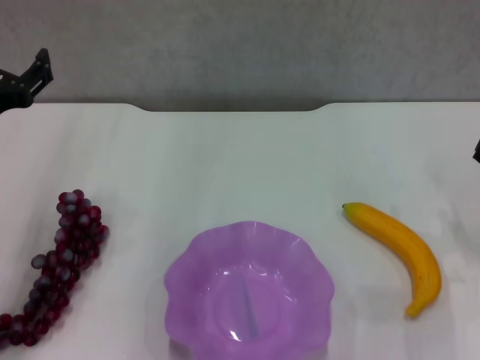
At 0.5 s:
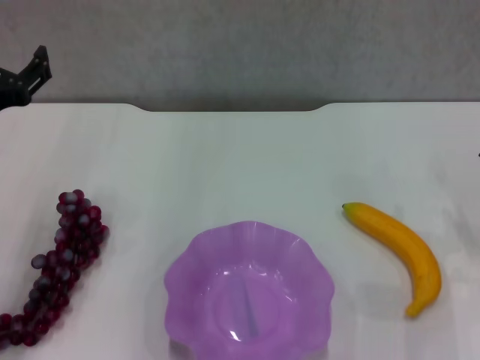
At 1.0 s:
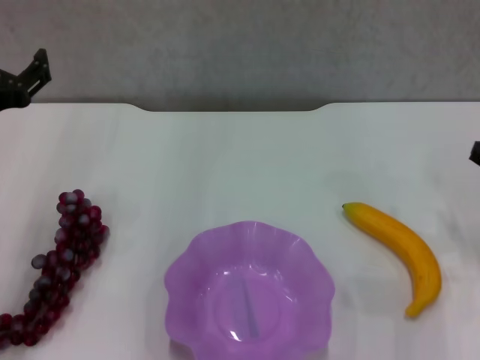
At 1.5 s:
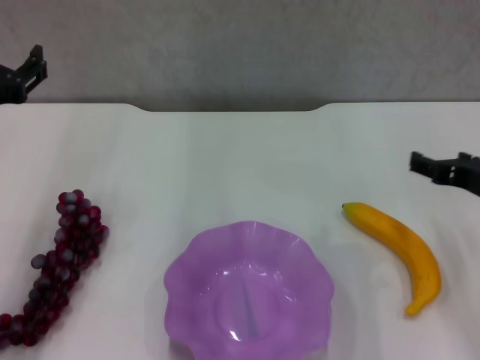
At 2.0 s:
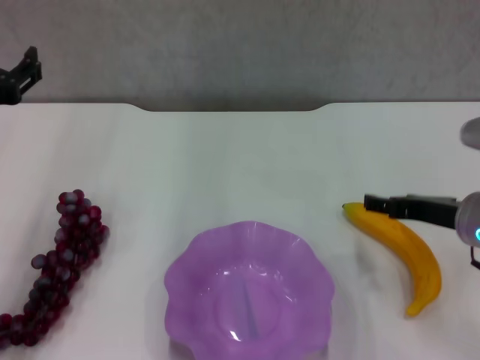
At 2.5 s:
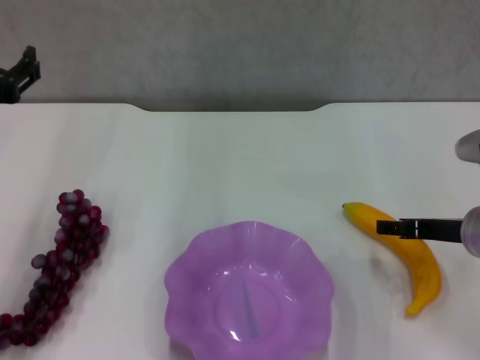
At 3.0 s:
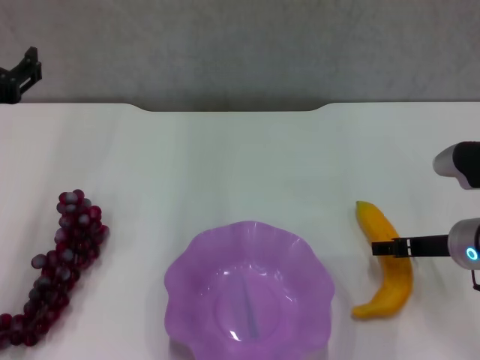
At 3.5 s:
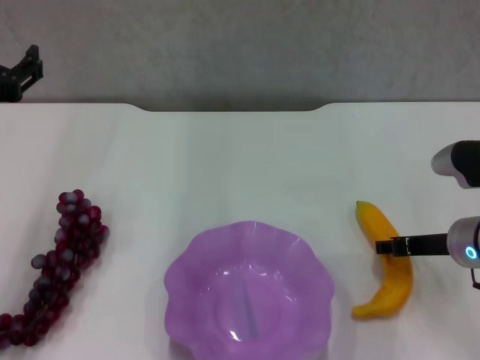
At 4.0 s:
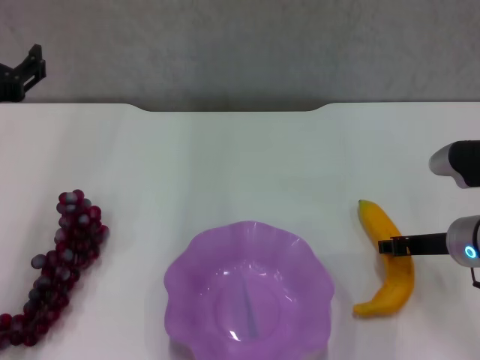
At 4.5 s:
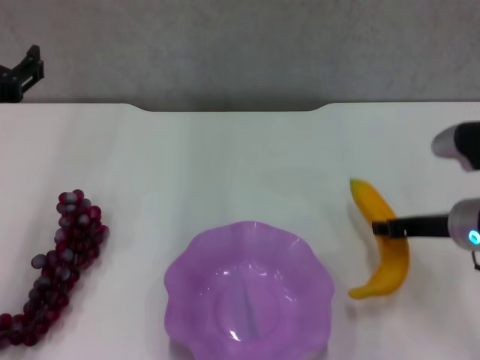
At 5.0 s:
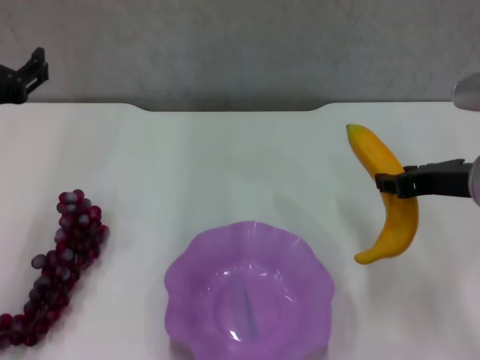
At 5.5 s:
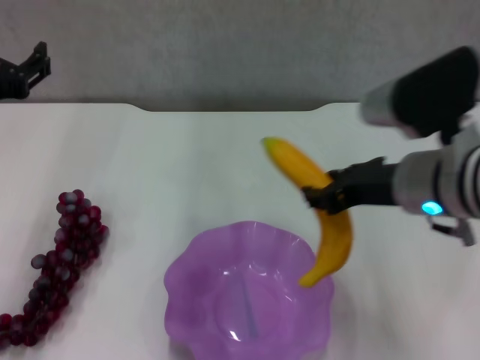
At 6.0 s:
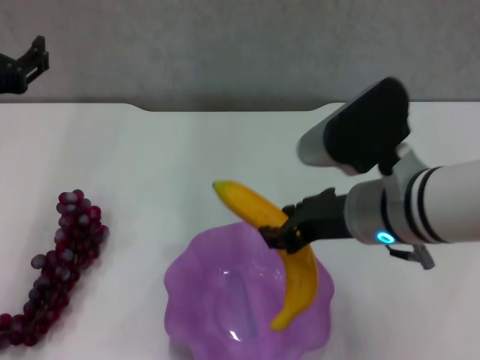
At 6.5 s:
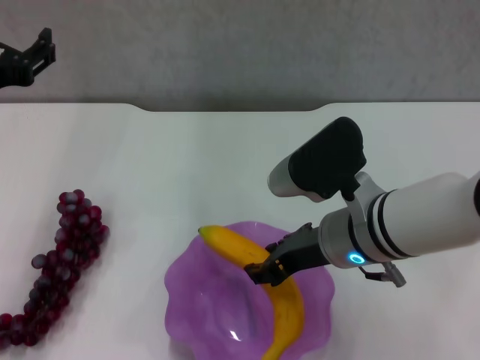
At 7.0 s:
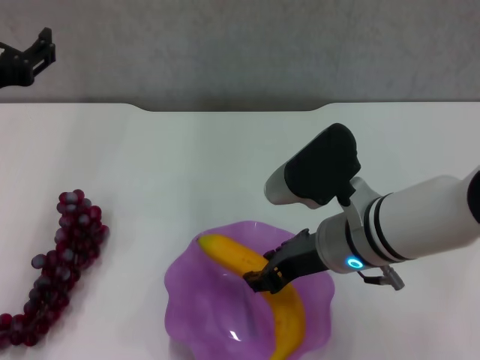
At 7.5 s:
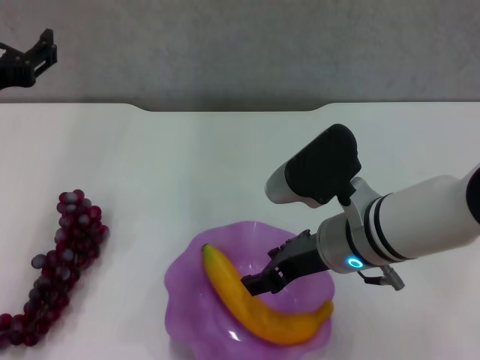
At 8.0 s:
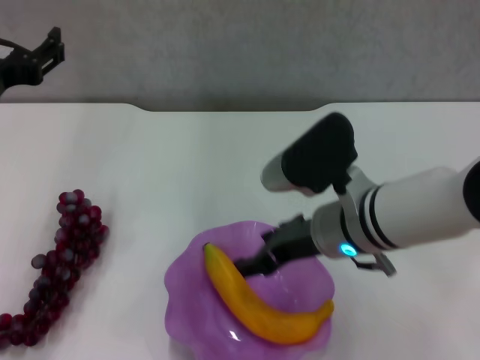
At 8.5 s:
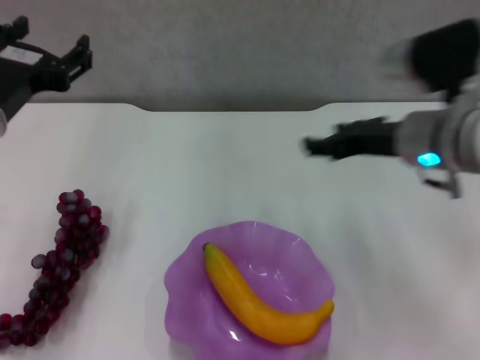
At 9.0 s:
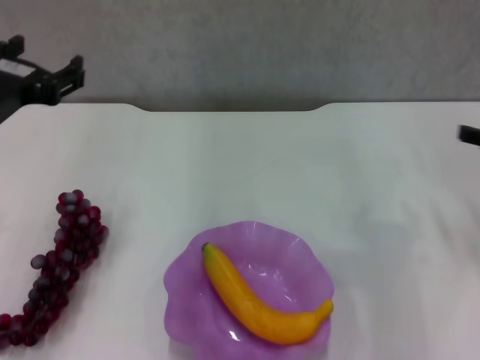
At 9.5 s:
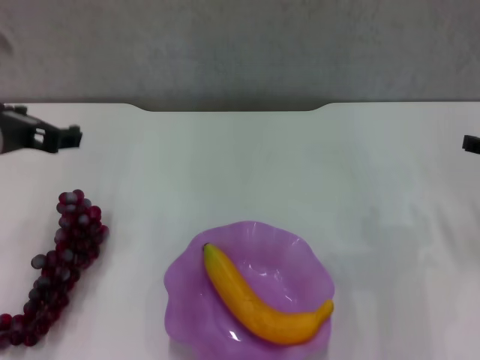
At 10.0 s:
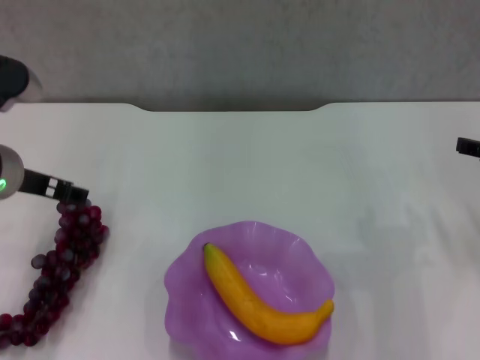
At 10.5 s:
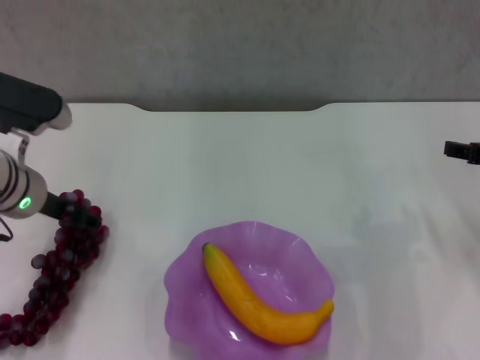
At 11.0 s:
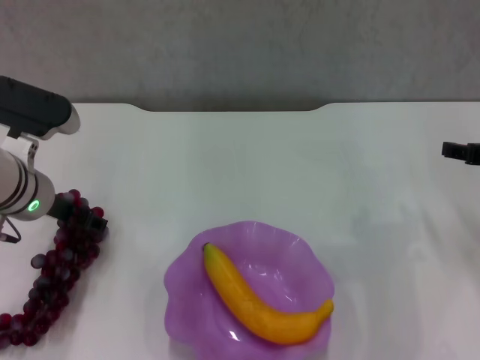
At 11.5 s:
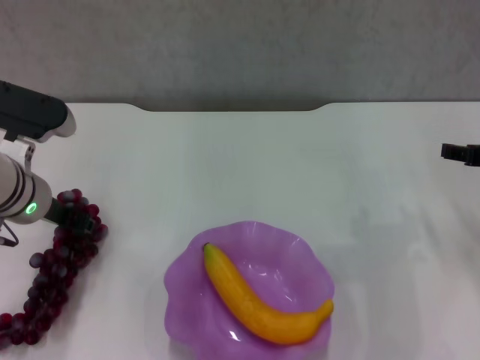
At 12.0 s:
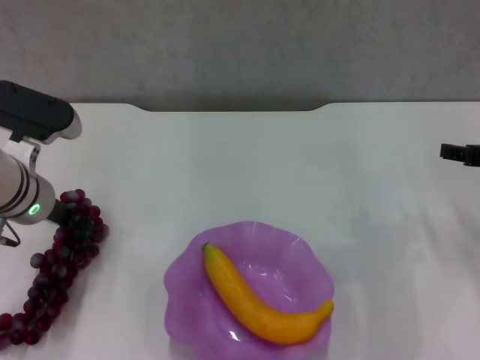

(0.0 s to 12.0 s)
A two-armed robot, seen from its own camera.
Step, 0.0 s - 3.5 s: Grasp the banana with right gripper.
Step, 4.0 s - 7.0 s: Place the banana in the purple plate with right gripper.
0.0 s - 2.0 s: The right gripper shifts about 10 cm to the left.
2.0 s - 4.0 s: The right gripper closes its fingers.
4.0 s - 6.0 s: The right gripper travels to the left and upward by approximately 15 cm.
6.0 s - 8.0 s: The right gripper opens its fingers.
8.0 s - 10.0 s: The left gripper changes place by approximately 5 cm; the right gripper travels to the right by roughly 25 cm.
10.0 s - 12.0 s: The left gripper moves roughly 5 cm, and closes up.

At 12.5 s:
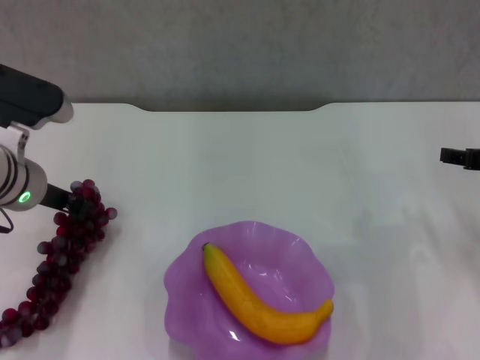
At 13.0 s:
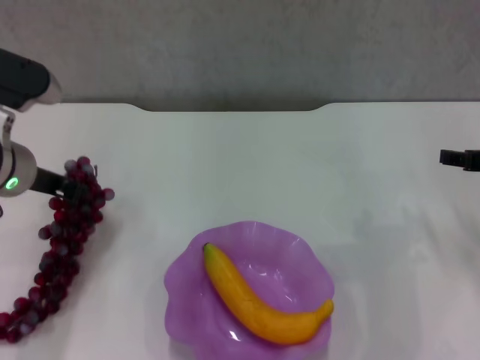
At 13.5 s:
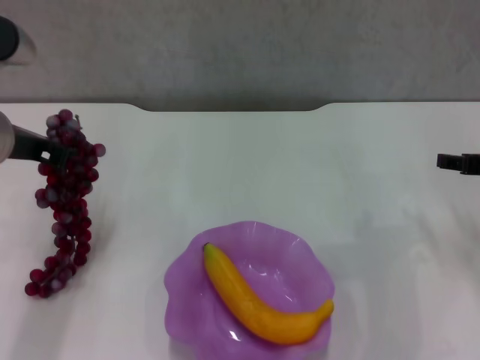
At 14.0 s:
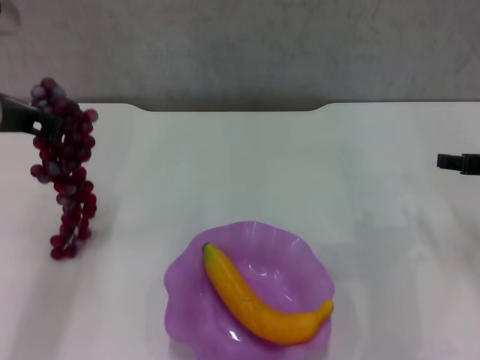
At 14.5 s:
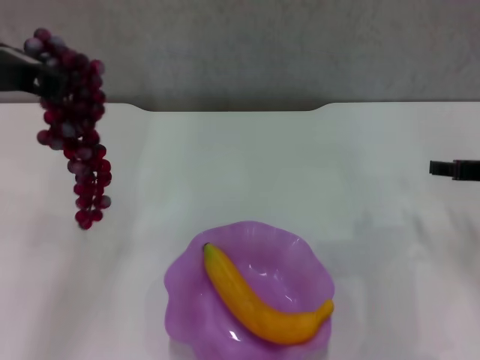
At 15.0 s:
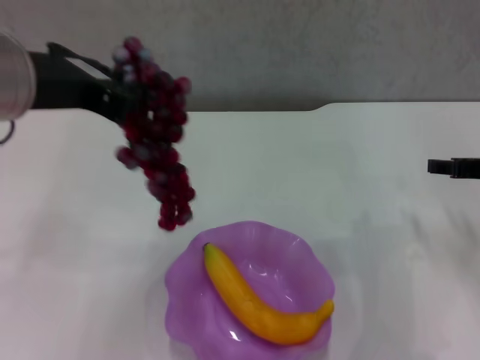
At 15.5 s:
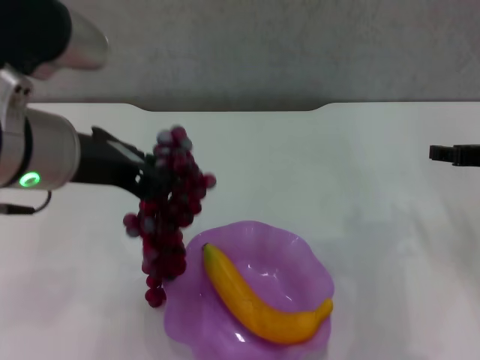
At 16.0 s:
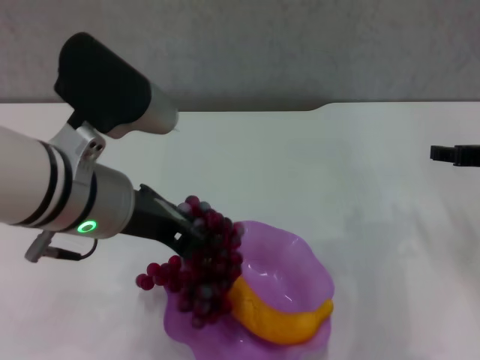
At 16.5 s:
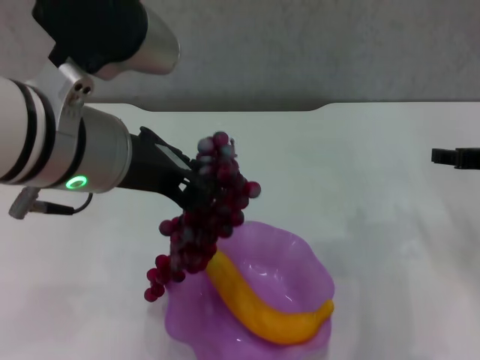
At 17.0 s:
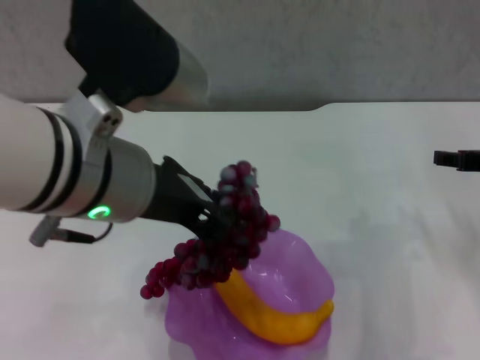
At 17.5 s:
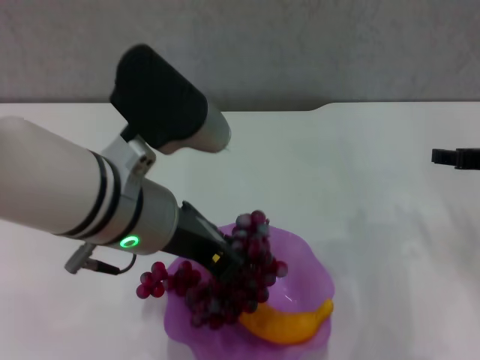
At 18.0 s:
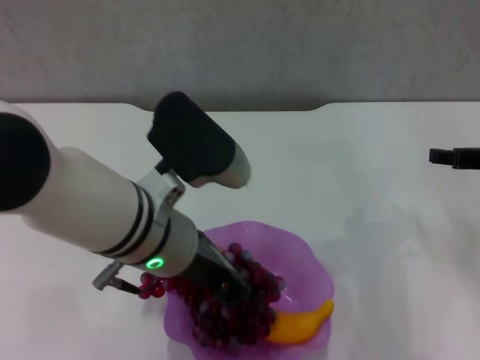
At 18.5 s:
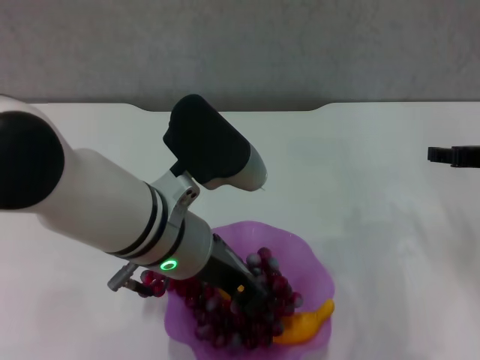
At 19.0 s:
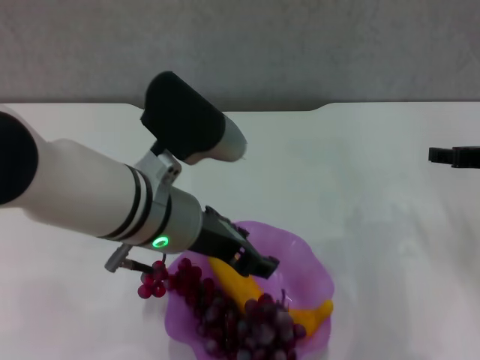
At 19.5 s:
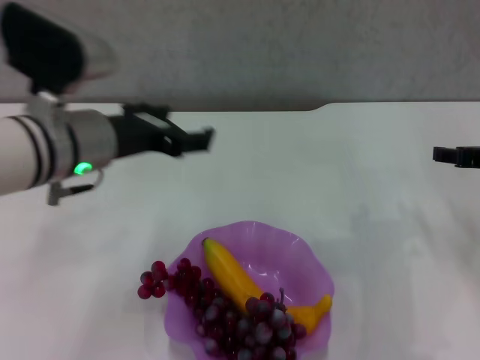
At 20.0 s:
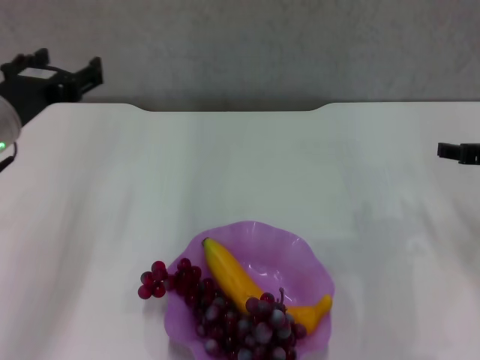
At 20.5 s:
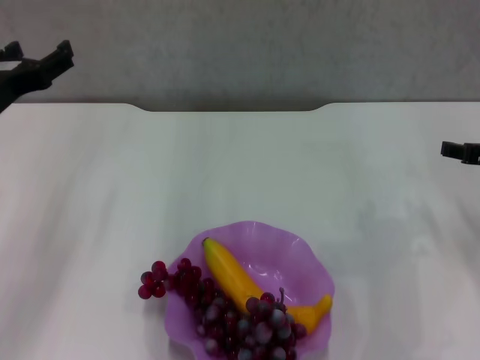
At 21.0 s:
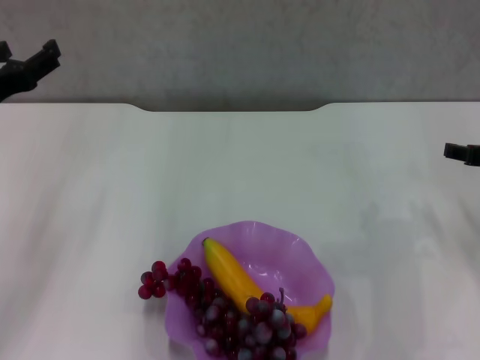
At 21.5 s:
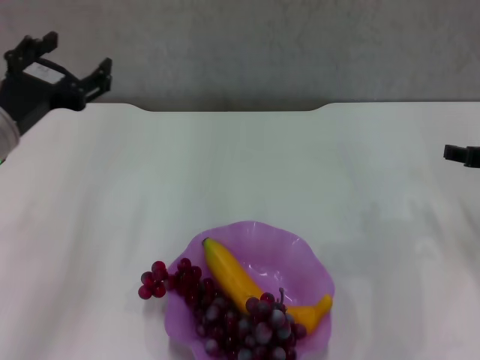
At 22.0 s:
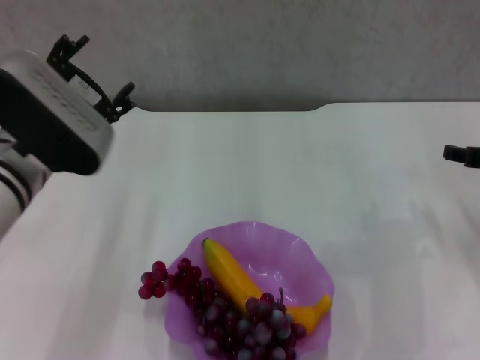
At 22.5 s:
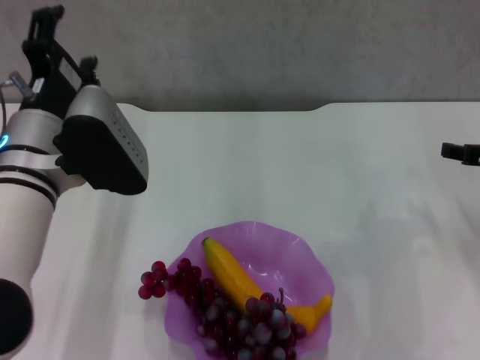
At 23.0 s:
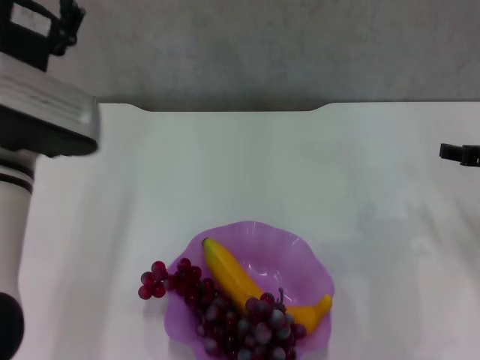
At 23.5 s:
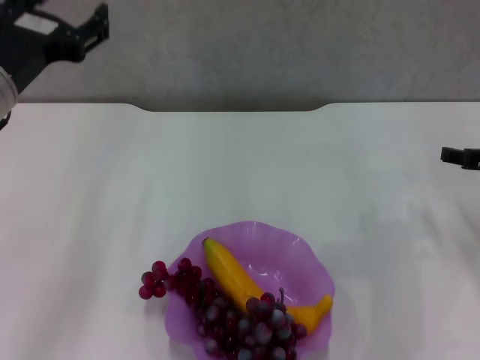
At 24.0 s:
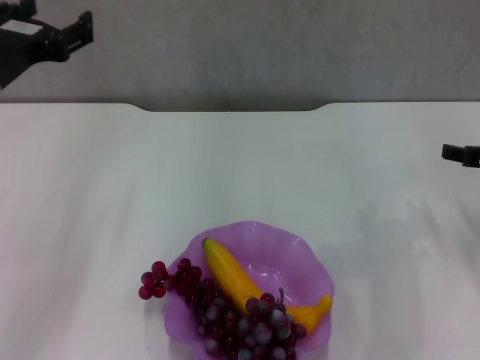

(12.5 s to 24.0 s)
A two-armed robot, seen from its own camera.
Step, 12.5 s - 19.0 s: Place the grape in the purple plate with left gripper.
12.5 s - 14.5 s: The left gripper is displaced upward by roughly 15 cm.
14.5 s - 16.5 s: The left gripper heads to the right, covering about 10 cm.
16.5 s - 18.5 s: The left gripper heads downward, covering roughly 10 cm.
18.5 s - 20.0 s: The left gripper goes approximately 15 cm to the left, and opens.
20.0 s - 22.0 s: The left gripper heads to the right, covering roughly 5 cm.
22.0 s - 24.0 s: The left gripper goes roughly 5 cm to the left.
